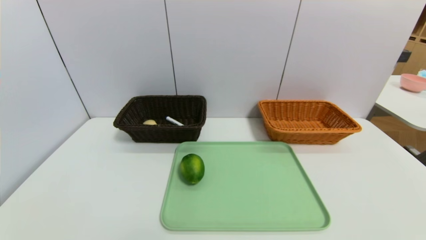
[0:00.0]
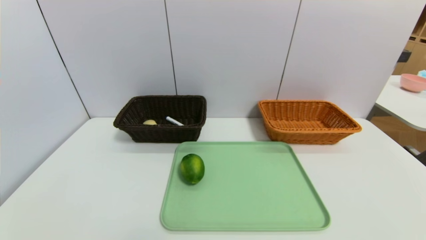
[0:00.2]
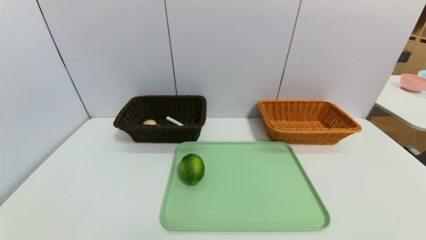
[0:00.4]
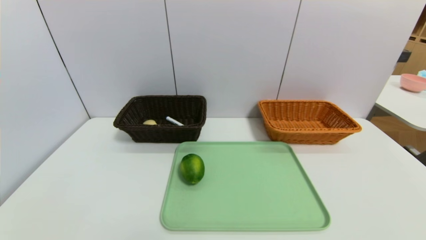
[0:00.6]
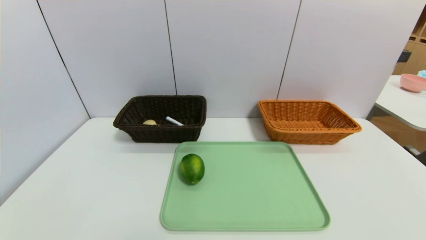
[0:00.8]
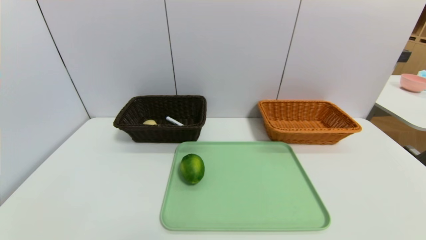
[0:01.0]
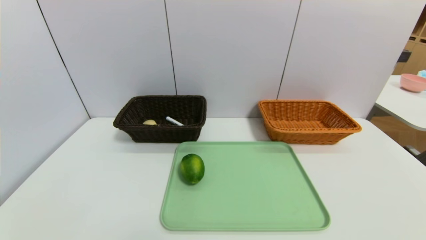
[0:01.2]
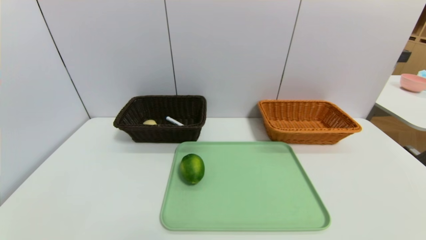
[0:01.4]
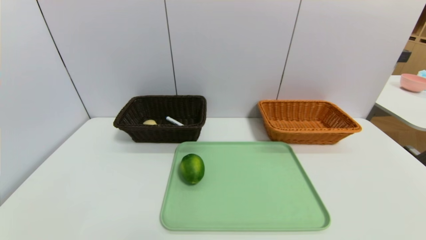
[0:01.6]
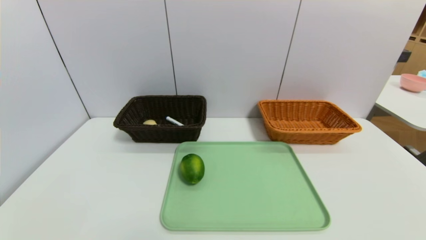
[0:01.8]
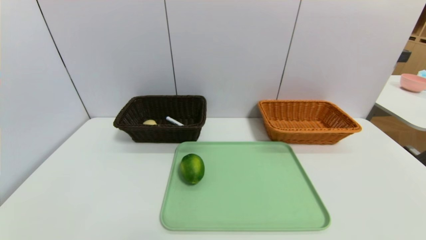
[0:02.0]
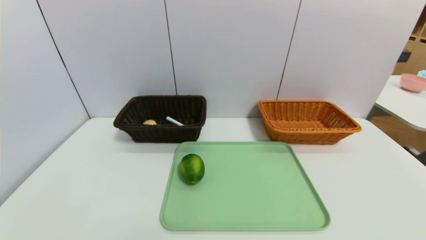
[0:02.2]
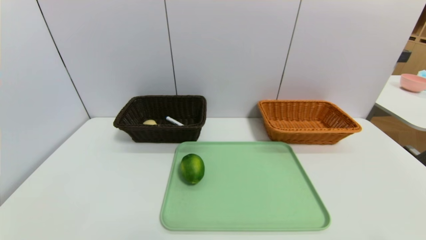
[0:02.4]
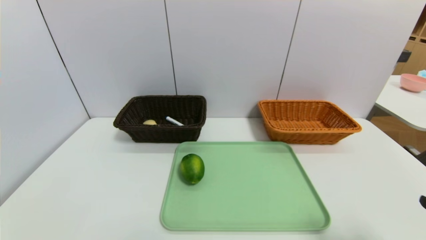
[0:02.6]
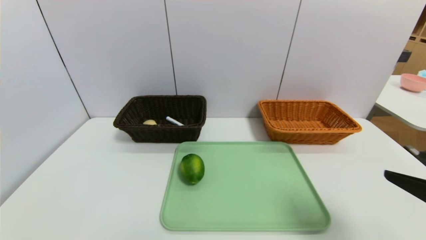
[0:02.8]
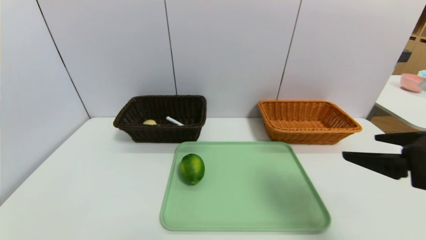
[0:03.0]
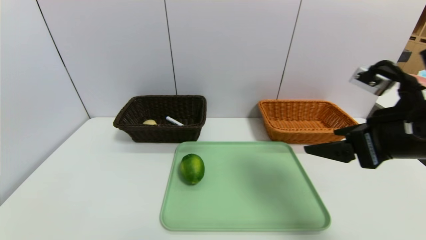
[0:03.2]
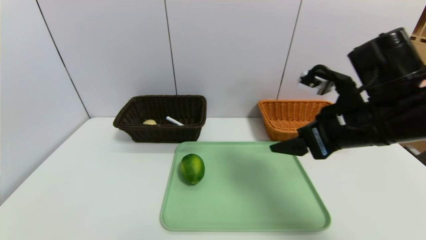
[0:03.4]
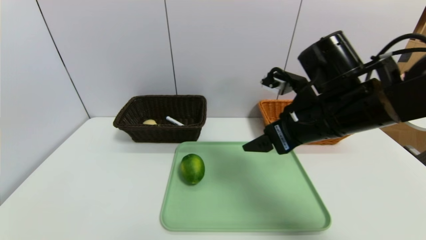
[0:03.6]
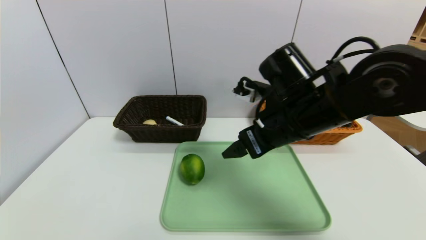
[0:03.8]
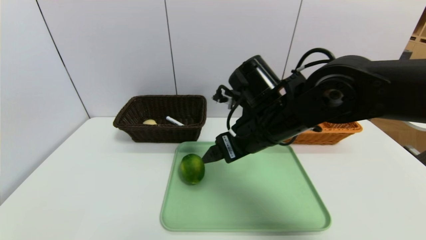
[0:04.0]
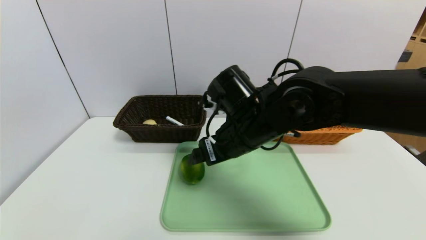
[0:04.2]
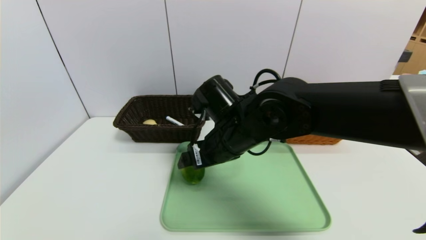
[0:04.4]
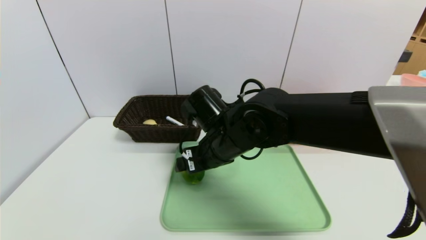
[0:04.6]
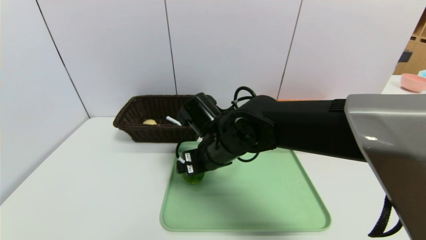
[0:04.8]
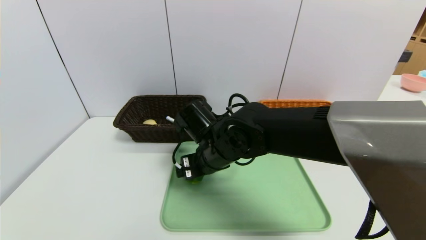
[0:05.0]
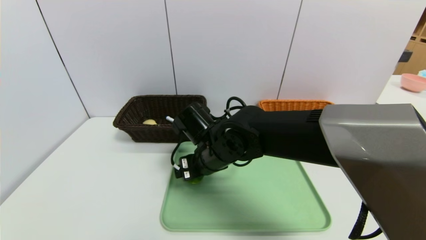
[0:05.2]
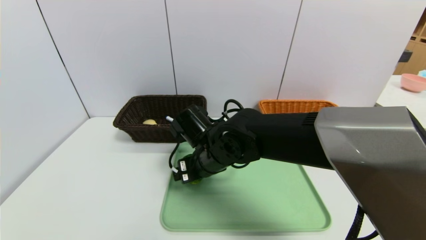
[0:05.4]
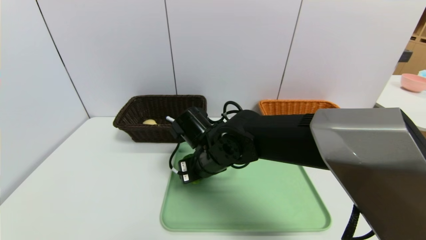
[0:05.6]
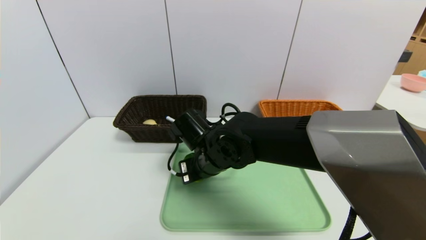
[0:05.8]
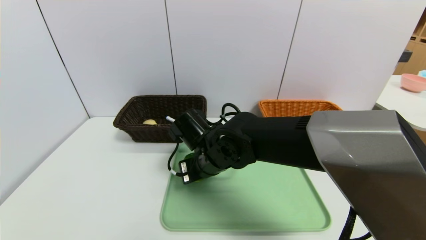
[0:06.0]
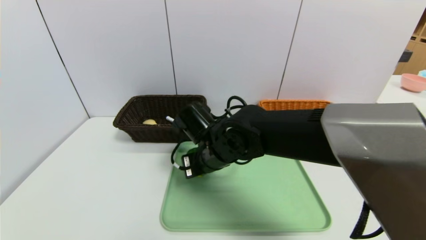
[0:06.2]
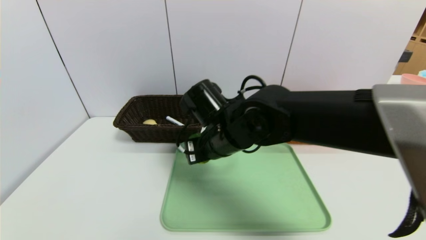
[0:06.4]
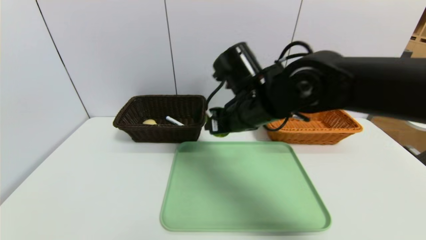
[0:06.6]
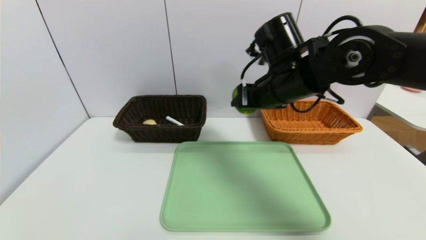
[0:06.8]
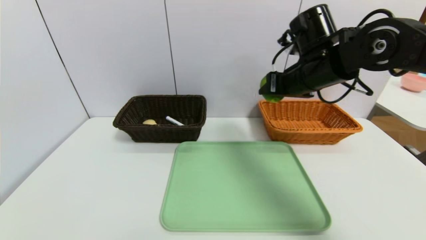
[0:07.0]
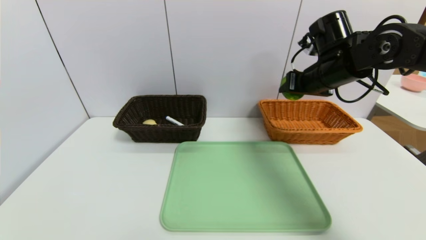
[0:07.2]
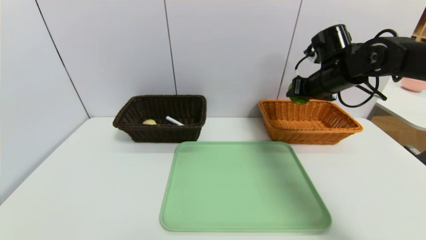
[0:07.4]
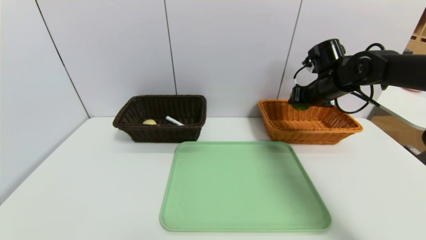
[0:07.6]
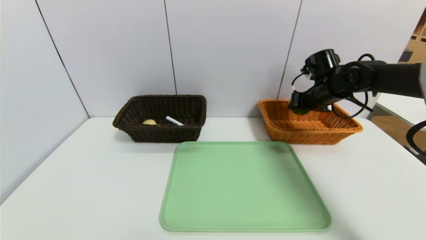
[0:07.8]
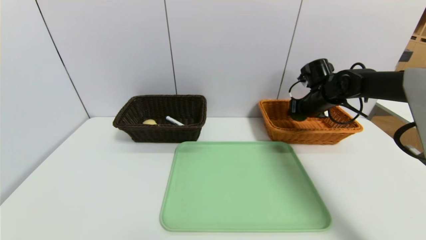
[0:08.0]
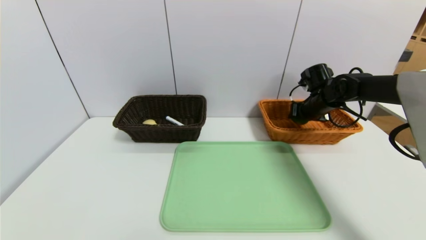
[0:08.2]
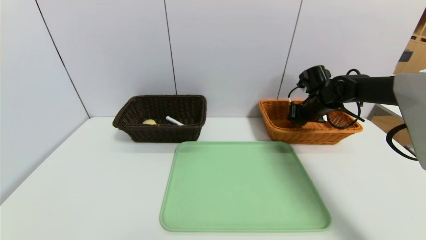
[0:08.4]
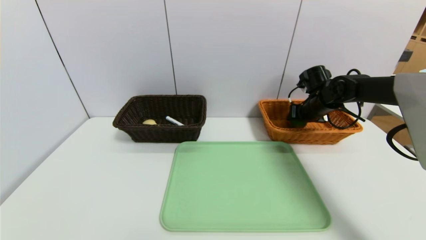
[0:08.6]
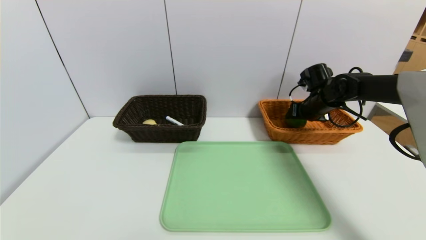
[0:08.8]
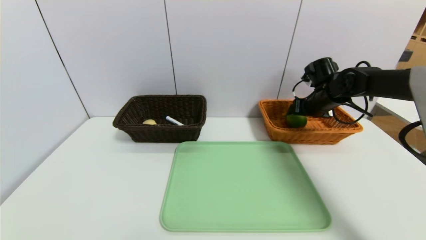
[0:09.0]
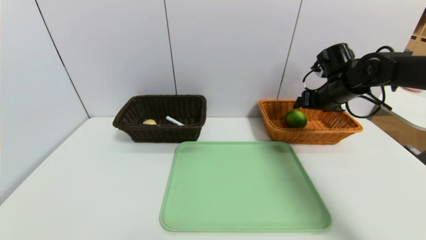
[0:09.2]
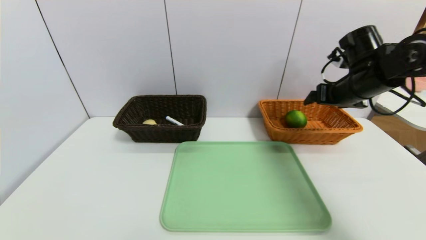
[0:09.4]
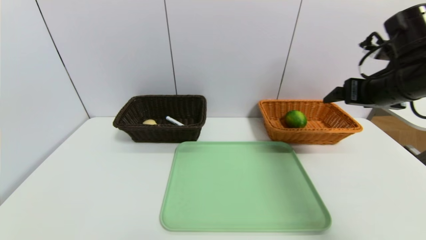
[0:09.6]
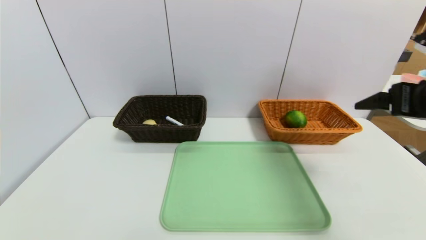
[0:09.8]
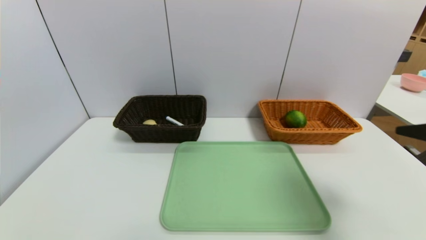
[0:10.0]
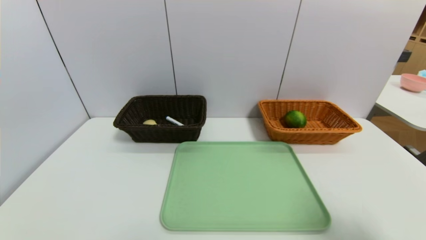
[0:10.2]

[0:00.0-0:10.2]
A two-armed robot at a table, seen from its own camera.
Task of the whole recording: place the food in the right basket with the right gripper, and place the non food items in the left basket with the left gripper.
Step, 0:00.0 to 0:09.0: Grasp the lemon and put it in the right basket.
0:00.0 to 0:01.4: Both grippers stay put.
0:01.4 to 0:03.0: The right gripper moves upward and forward, approximately 25 cm.
0:03.0 to 0:04.4: The right gripper heads to the left and forward, covering approximately 30 cm.
0:04.4 to 0:05.8: The right gripper heads downward, covering some 5 cm, and closes its fingers.
0:05.8 to 0:07.2: The right gripper heads to the right and upward, covering roughly 30 cm.
0:07.2 to 0:08.8: The right gripper shifts approximately 15 cm downward, forward and to the right, and opens.
0:08.8 to 0:10.2: The right gripper travels backward by approximately 40 cm, and opens its fingers.

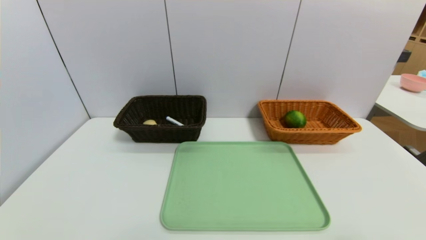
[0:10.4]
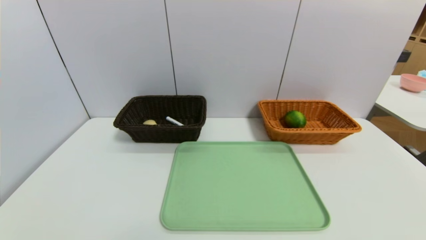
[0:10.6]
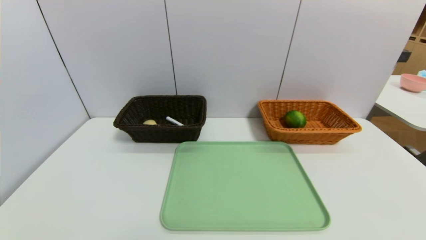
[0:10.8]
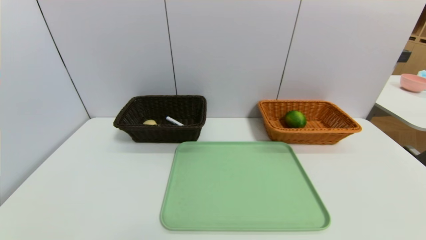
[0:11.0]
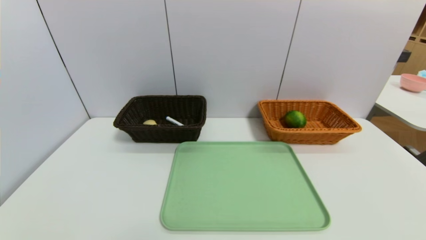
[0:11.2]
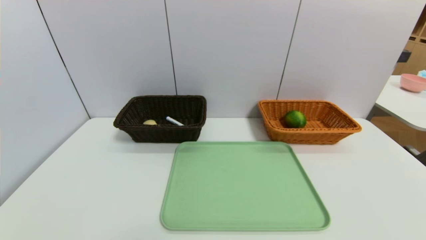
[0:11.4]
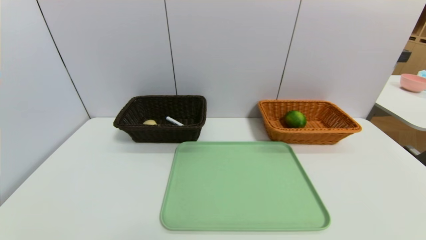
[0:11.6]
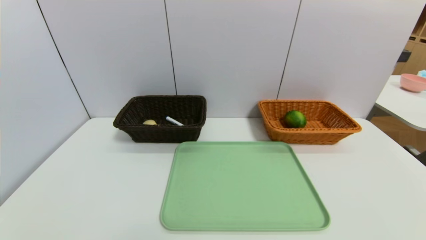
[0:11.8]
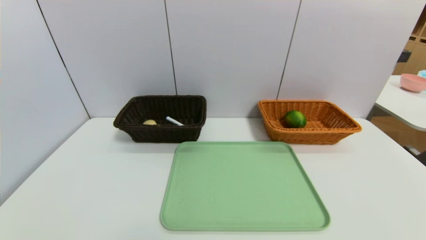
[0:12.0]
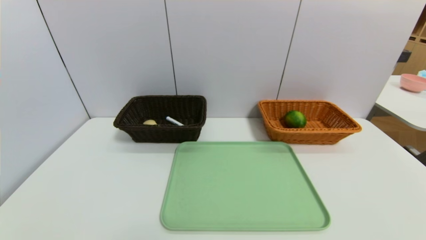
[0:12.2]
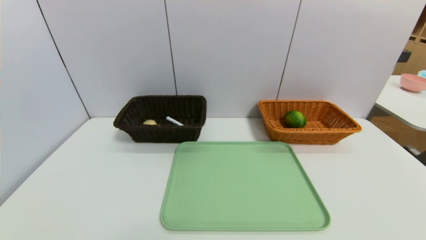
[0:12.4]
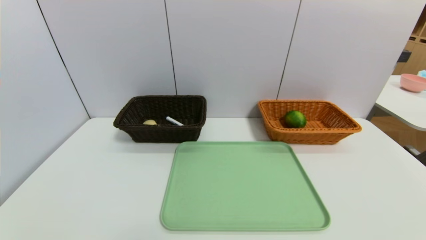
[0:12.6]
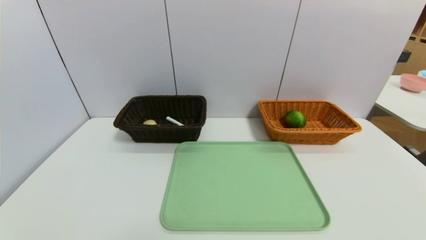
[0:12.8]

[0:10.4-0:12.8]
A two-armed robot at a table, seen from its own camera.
Task of the whole recording: place the food in the right basket with the right gripper, and place the non food items in the left basket with the left gripper.
0:11.6 to 0:12.8: Neither gripper changes place.

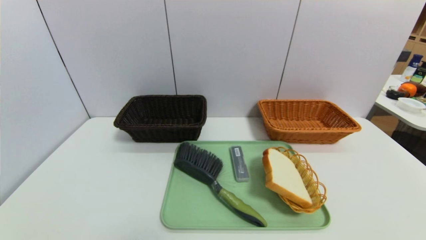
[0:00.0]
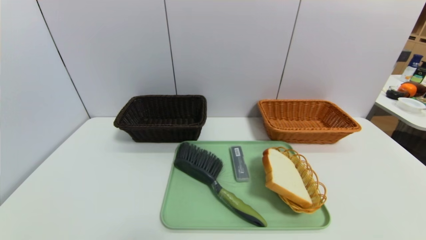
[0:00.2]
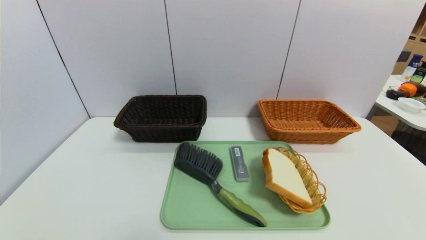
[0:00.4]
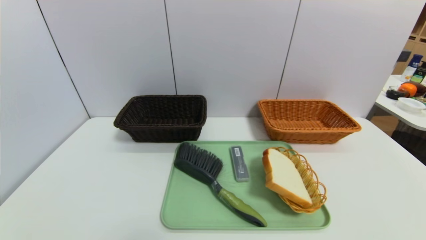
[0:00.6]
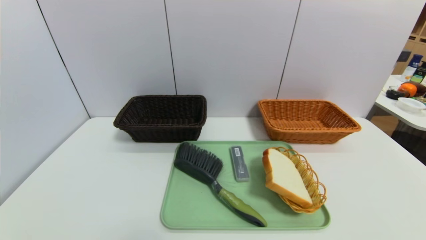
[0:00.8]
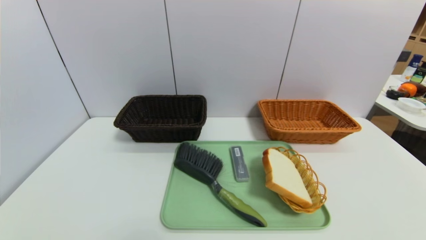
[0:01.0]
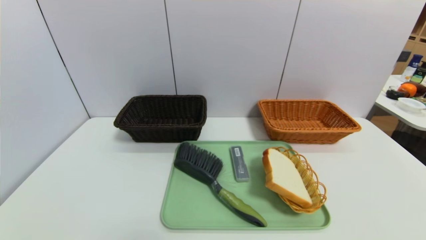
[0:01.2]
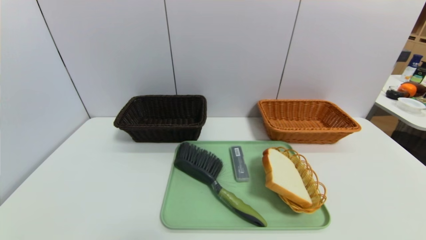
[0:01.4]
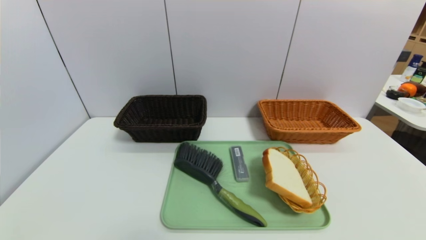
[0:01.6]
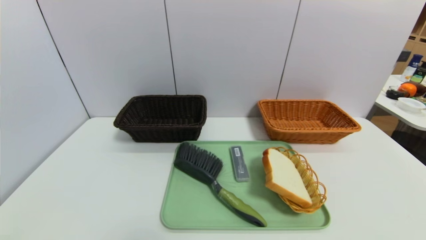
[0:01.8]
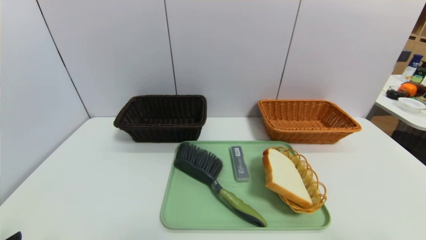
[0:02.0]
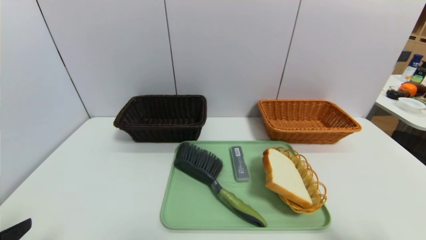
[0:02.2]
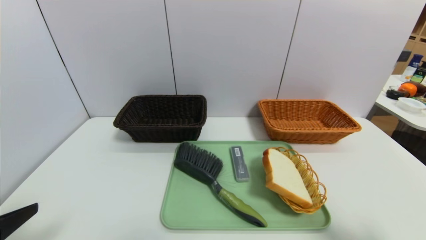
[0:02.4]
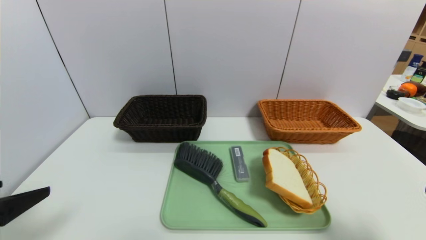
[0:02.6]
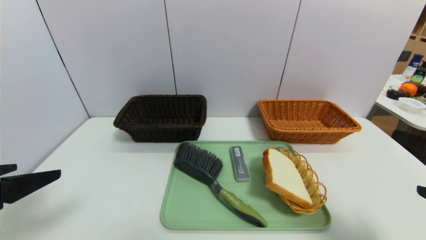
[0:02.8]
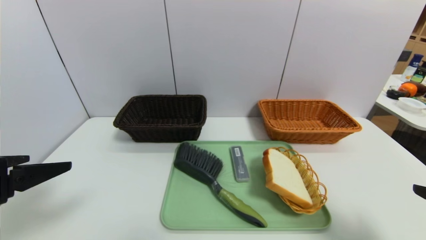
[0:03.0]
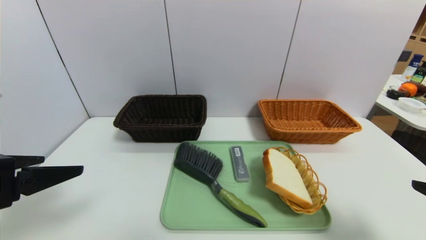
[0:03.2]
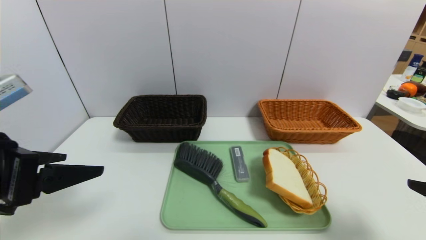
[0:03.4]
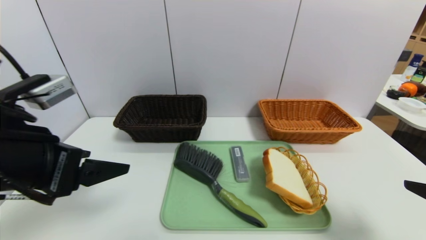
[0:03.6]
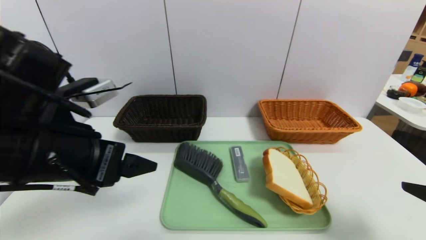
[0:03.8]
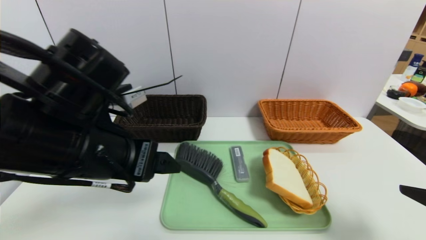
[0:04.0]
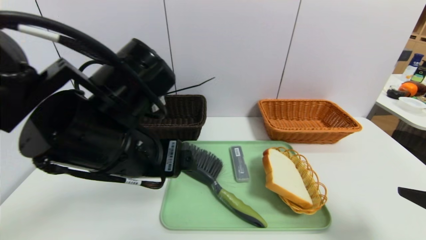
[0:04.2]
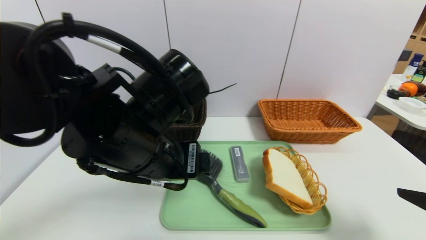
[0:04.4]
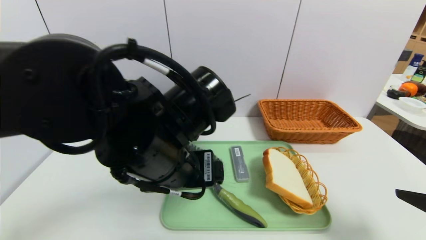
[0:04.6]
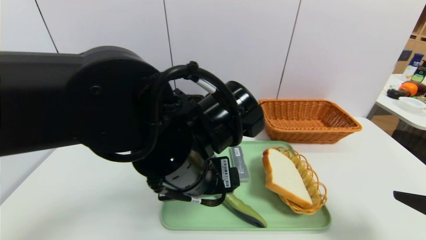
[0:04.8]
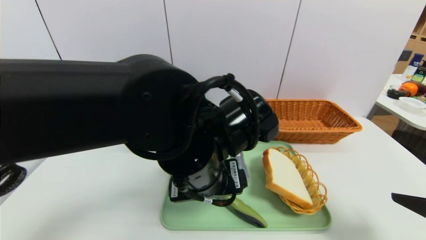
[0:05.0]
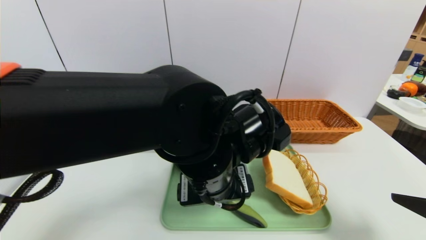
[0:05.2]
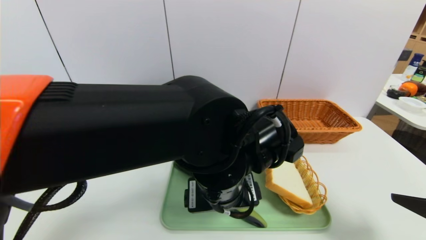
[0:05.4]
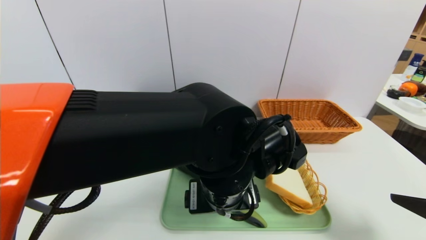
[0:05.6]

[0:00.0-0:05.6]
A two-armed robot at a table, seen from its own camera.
Task of the whole recording: place the food in the right basket with the right gripper, and place the non food items in the left basket with the left gripper.
0:01.4 to 0:02.8: The grippers both shift upward and forward by roughly 15 cm.
0:02.8 to 0:04.2: The left gripper heads to the right and forward, covering some 20 cm.
0:04.2 to 0:05.6: The left gripper moves to the right and downward, some 15 cm.
